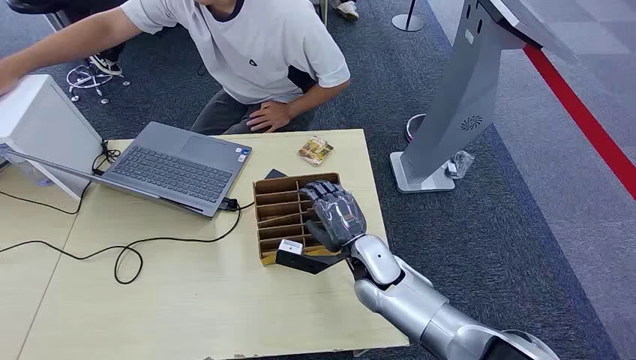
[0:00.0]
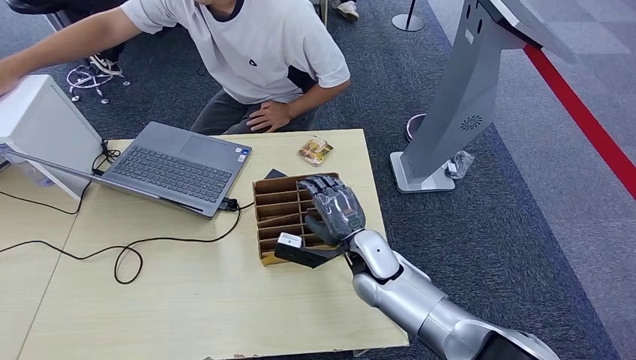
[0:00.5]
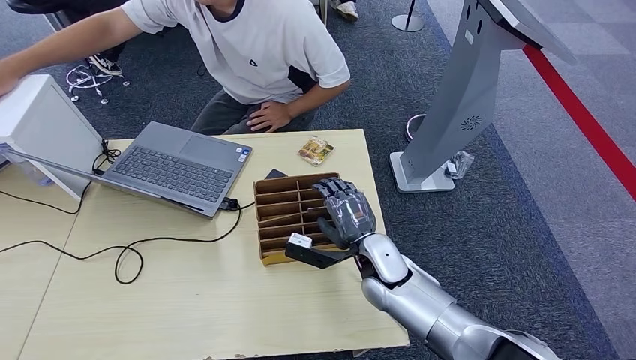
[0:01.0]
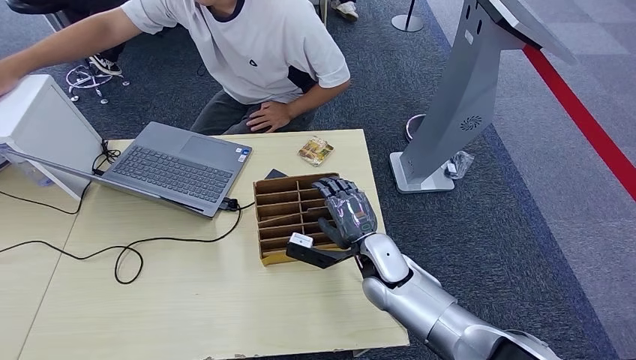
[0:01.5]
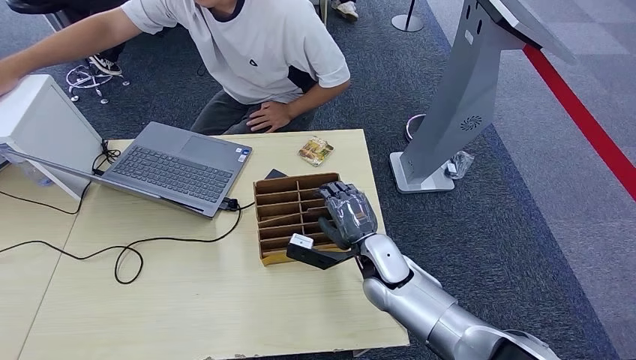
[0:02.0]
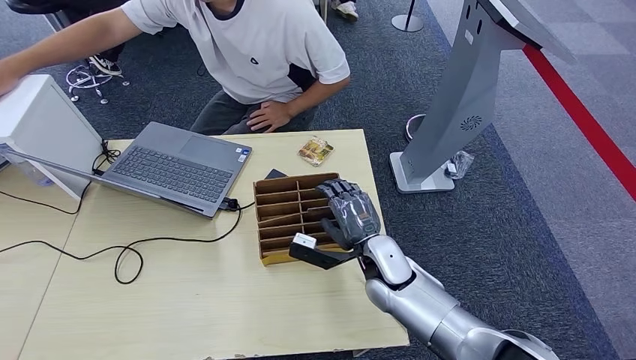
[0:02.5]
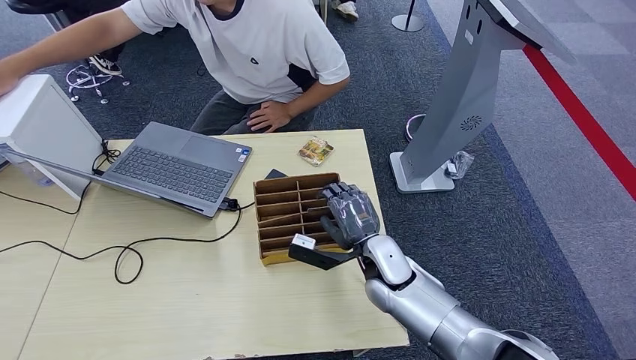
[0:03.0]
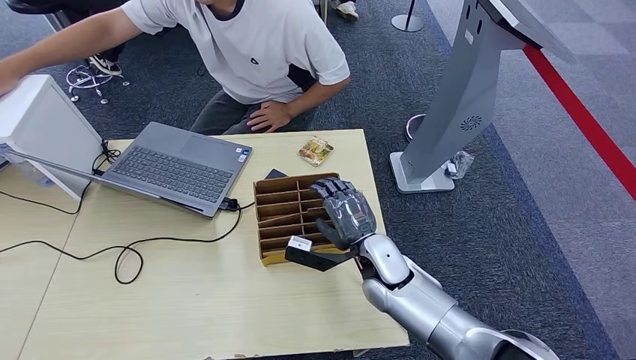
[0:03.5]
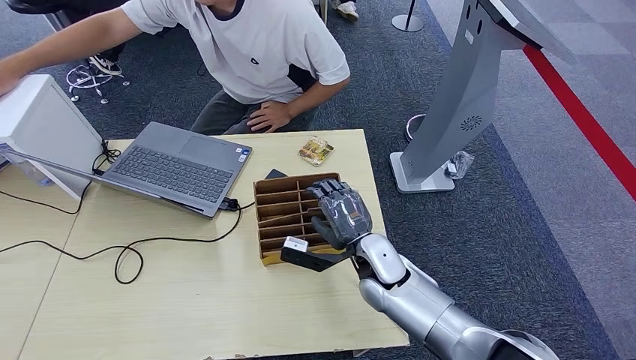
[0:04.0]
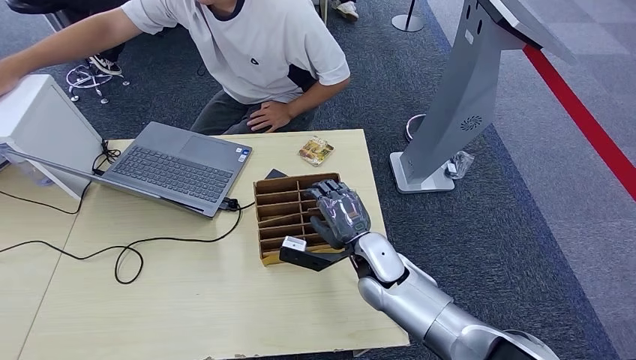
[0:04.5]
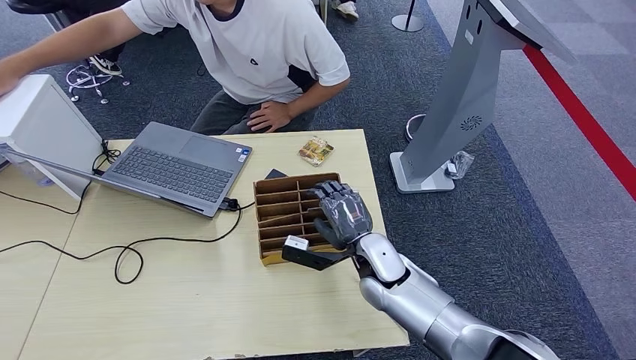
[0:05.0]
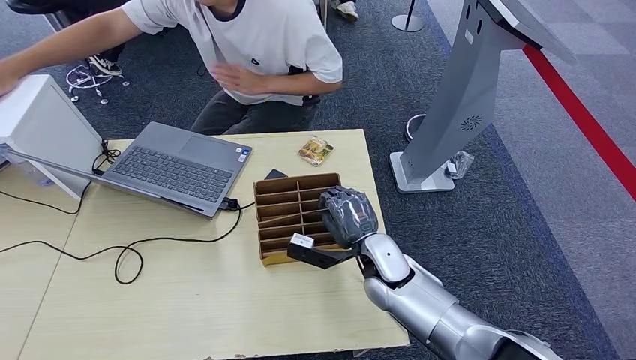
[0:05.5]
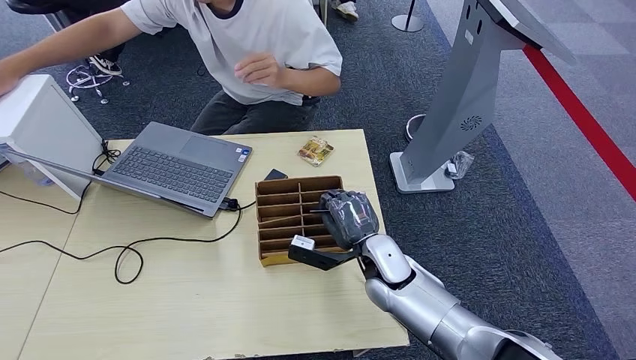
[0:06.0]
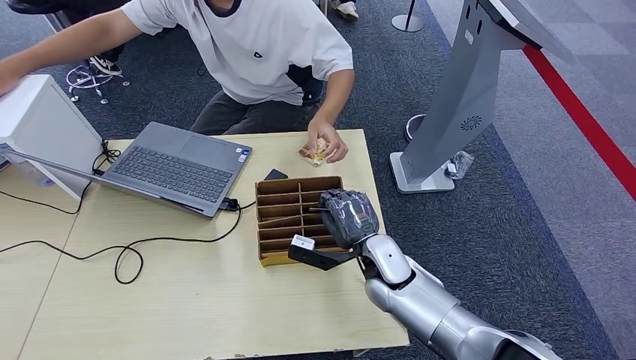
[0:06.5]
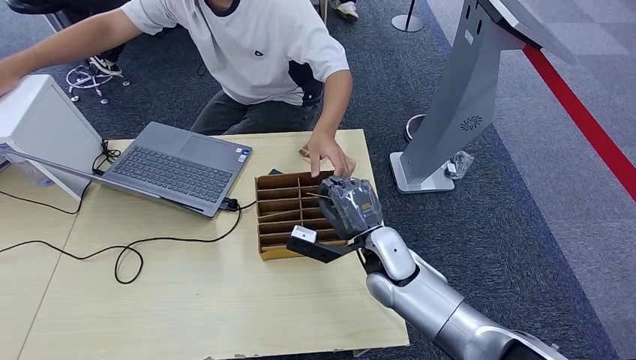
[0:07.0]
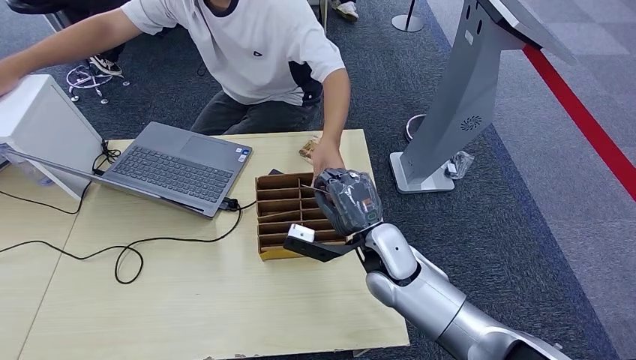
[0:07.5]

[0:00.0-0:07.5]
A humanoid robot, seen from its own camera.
Step, 0:00.0 to 0:06.5: Pick up the room card from the card holder.
Step, 0:07.0 to 0:07.5: Hand the room card to the target.
0:02.0 to 0:05.5: The two hands keep their place.
0:05.5 to 0:07.5: The hands make only small movements.
